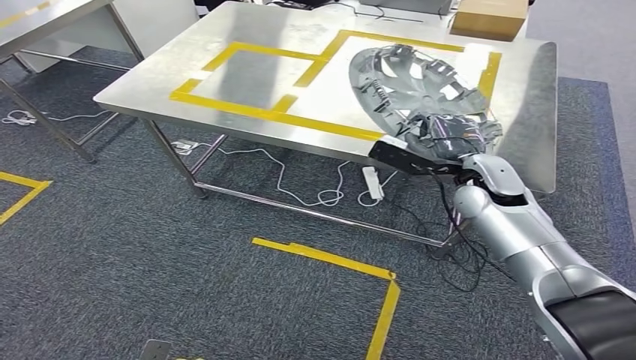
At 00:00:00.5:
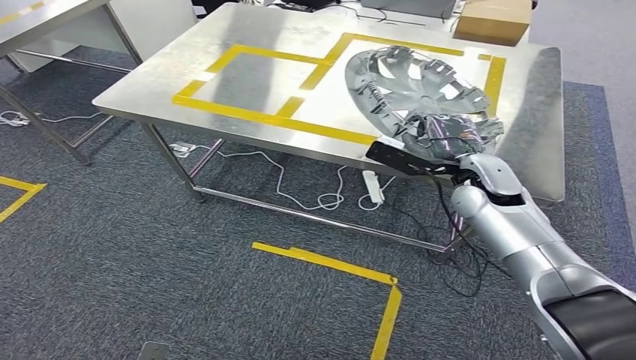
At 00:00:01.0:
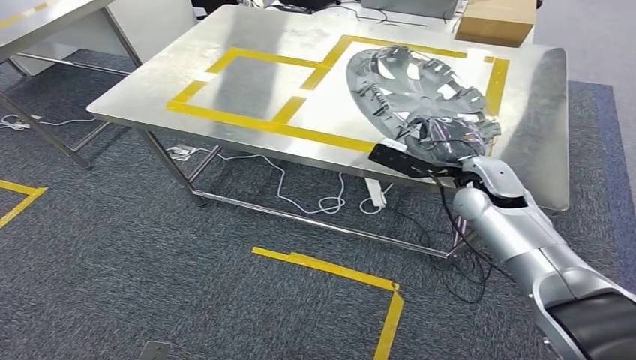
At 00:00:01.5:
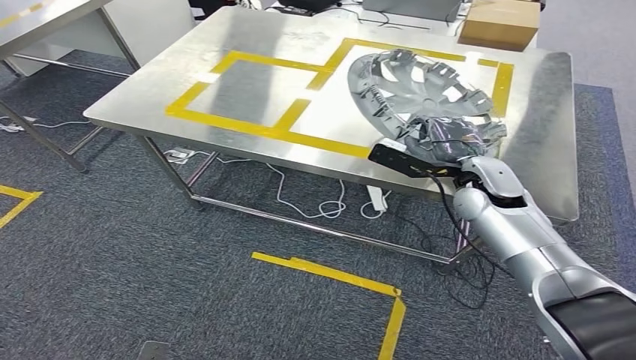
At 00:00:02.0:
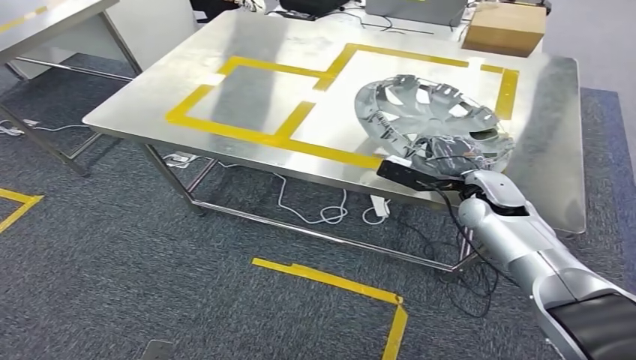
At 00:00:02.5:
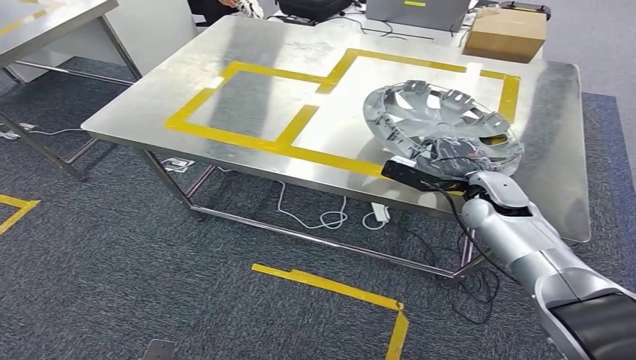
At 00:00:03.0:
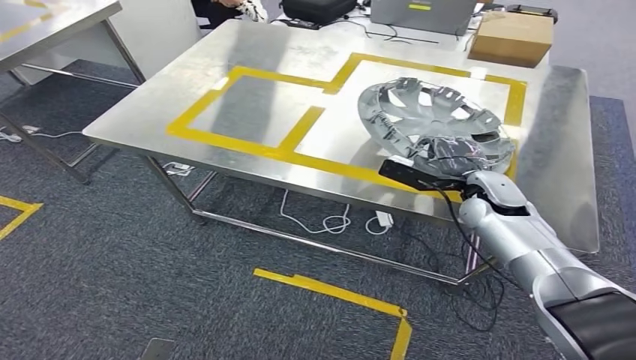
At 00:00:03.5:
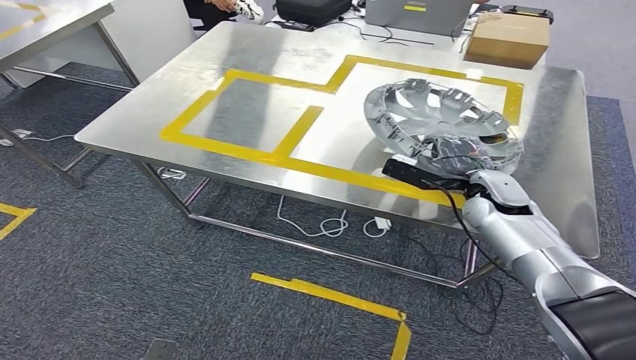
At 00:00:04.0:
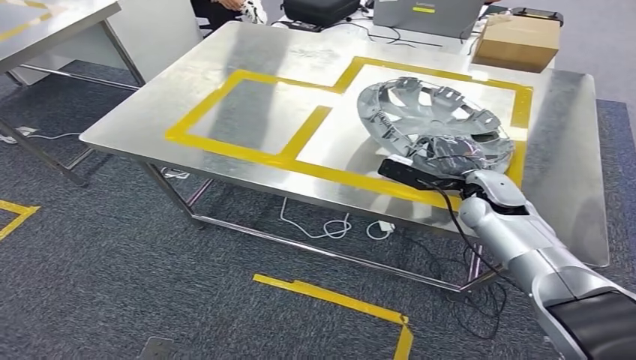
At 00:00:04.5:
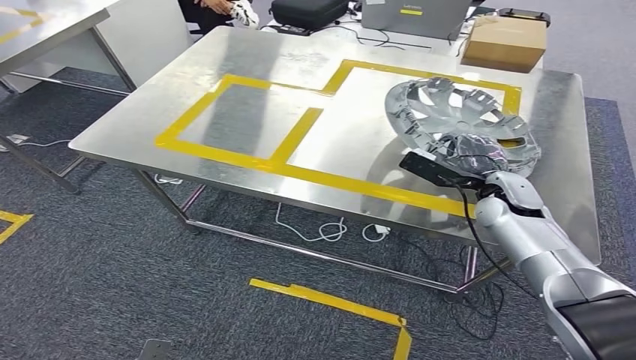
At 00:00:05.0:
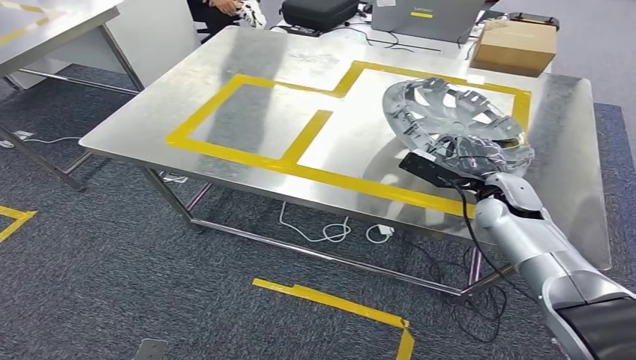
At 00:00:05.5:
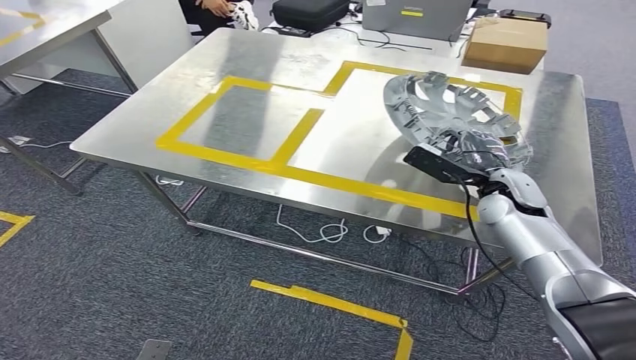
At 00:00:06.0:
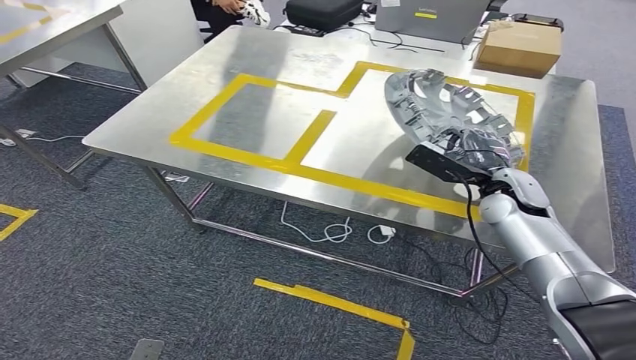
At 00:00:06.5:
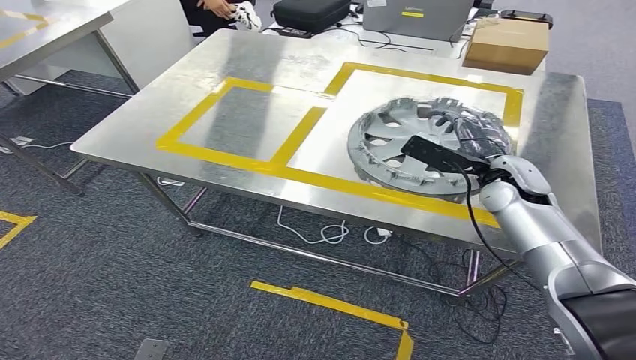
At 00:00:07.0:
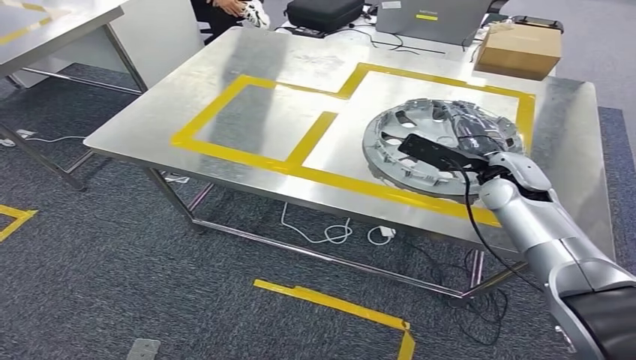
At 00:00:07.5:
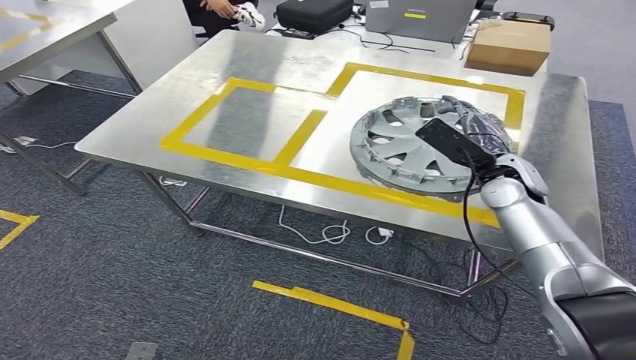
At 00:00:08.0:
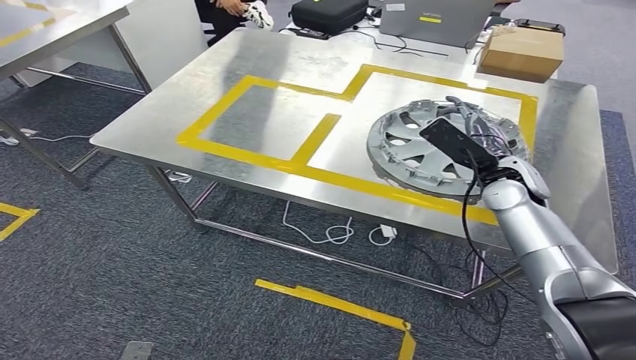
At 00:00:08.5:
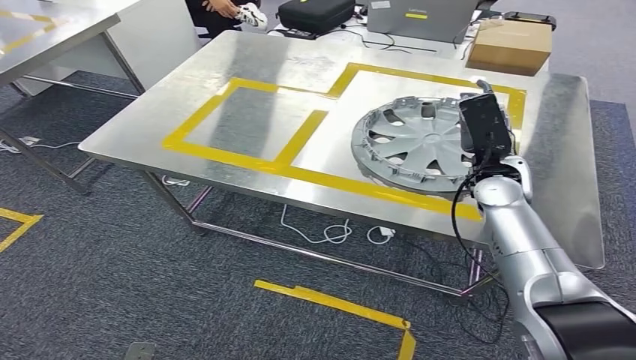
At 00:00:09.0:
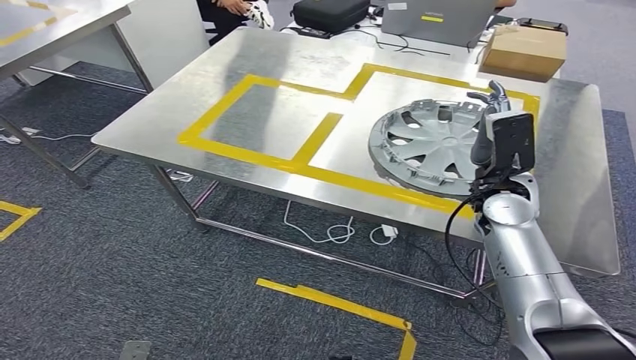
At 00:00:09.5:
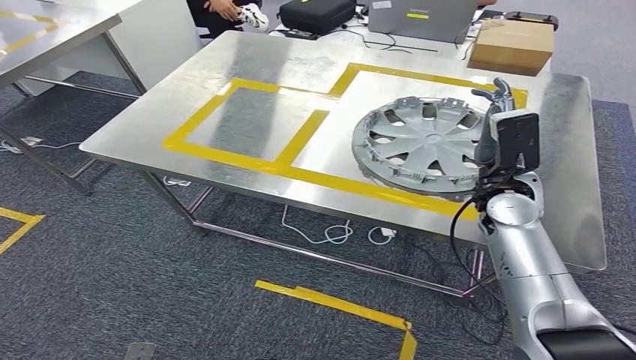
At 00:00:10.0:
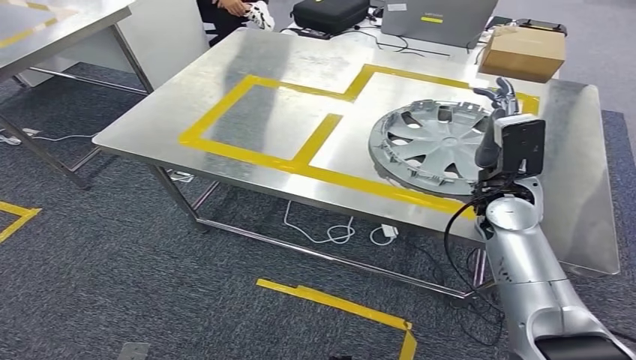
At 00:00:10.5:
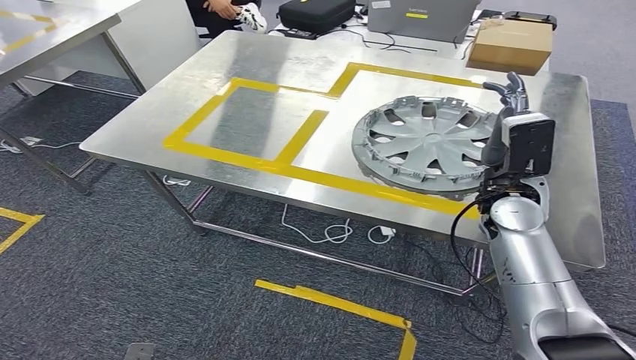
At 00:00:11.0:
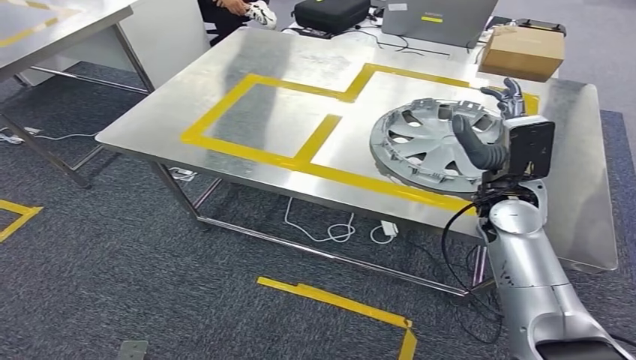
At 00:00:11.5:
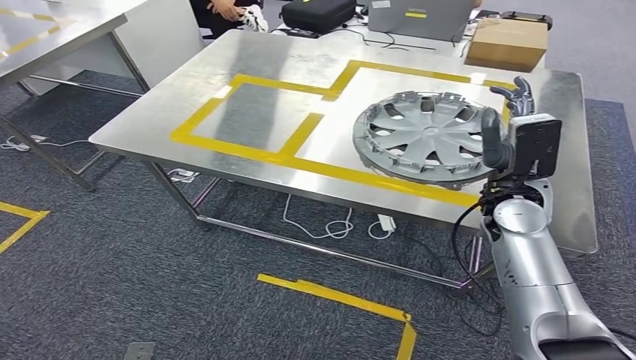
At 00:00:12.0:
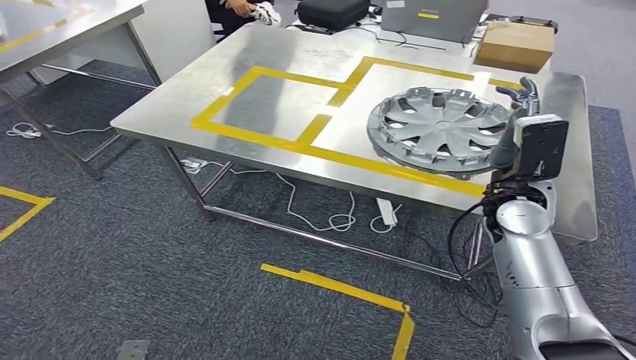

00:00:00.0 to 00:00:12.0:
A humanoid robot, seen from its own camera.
Step, 00:00:00.0 to 00:00:08.0: Insert the small component into the corresponding slot on the workbench.
00:00:06.0 to 00:00:08.0: The hands make only small movements.
00:00:08.0 to 00:00:10.0: The right hand ends up roughly 5 cm from where it was.

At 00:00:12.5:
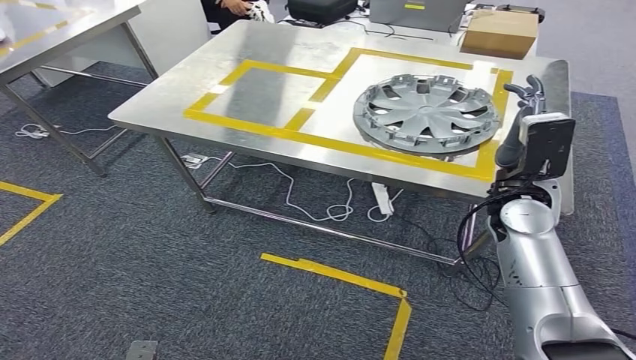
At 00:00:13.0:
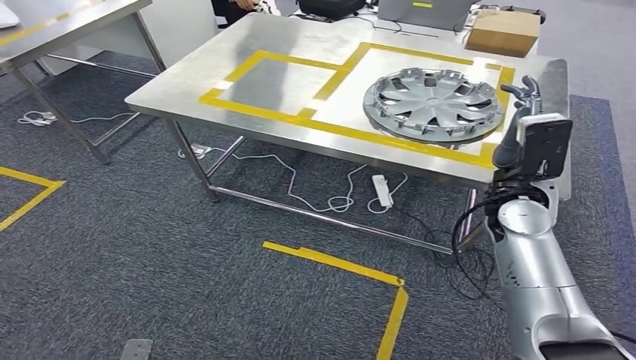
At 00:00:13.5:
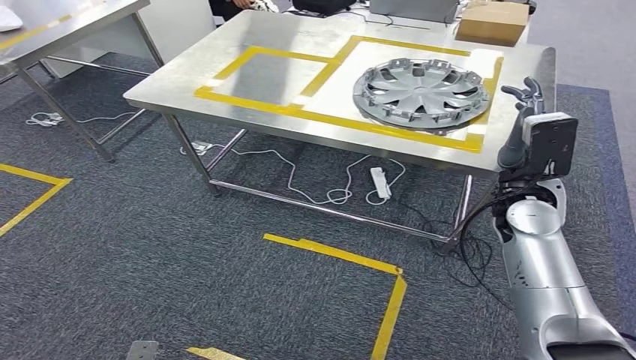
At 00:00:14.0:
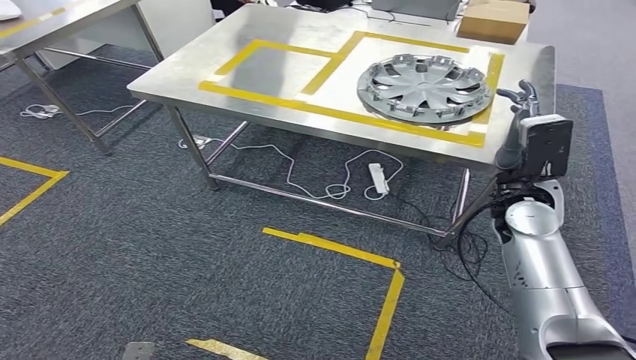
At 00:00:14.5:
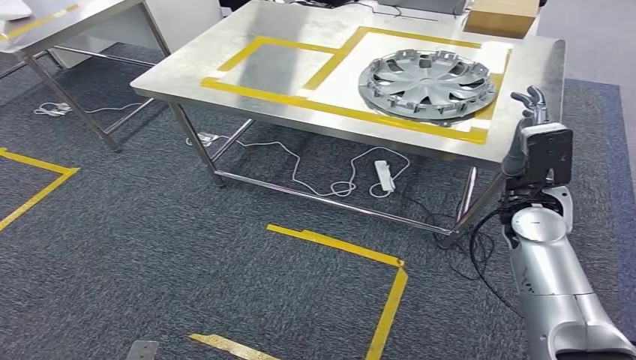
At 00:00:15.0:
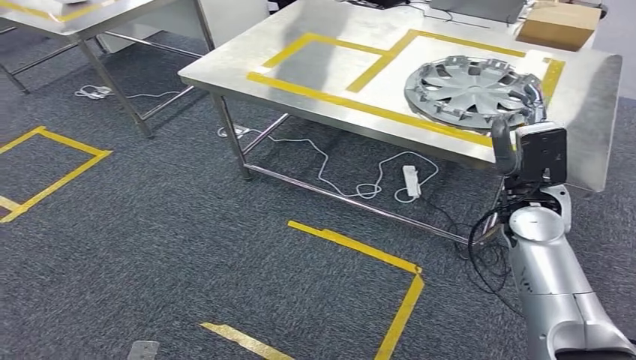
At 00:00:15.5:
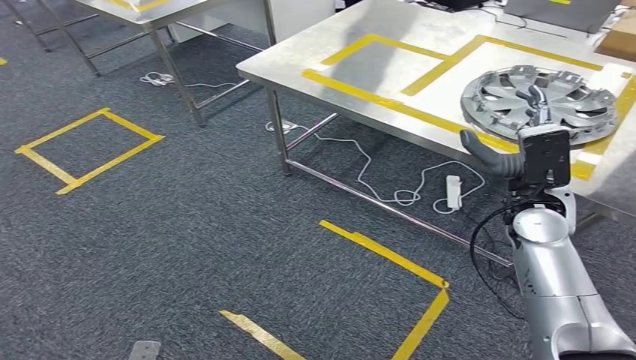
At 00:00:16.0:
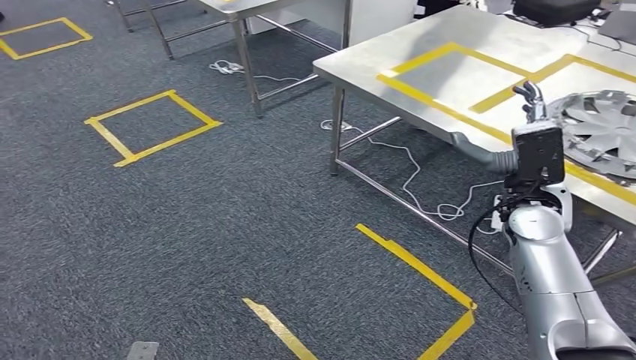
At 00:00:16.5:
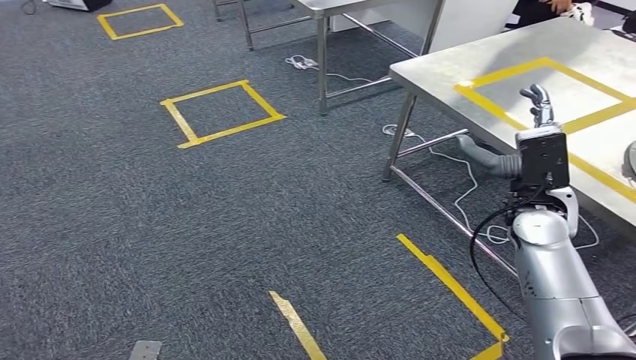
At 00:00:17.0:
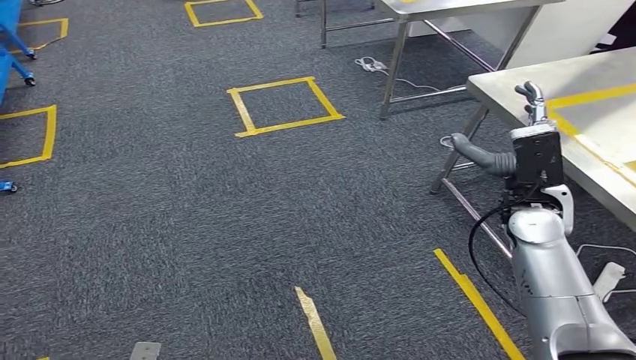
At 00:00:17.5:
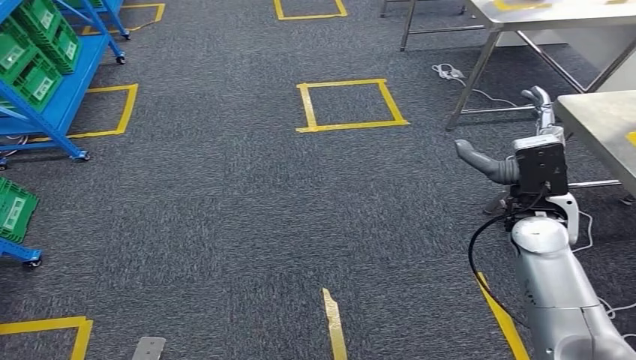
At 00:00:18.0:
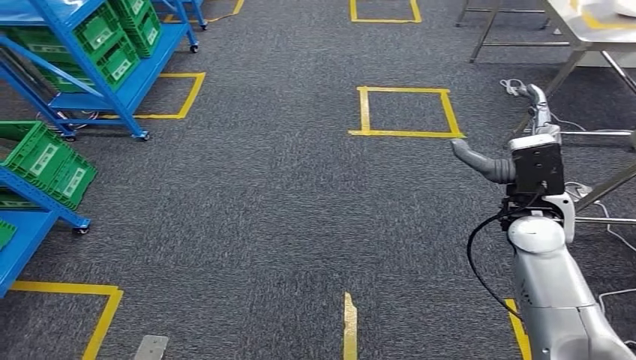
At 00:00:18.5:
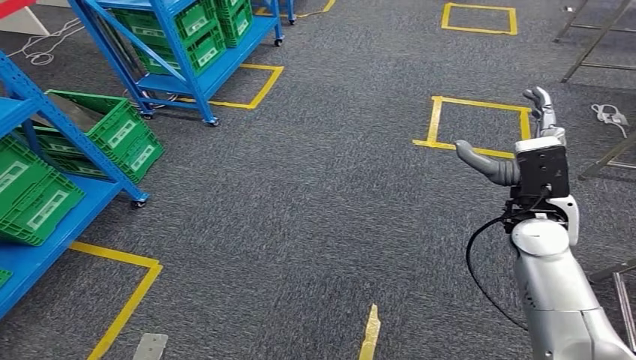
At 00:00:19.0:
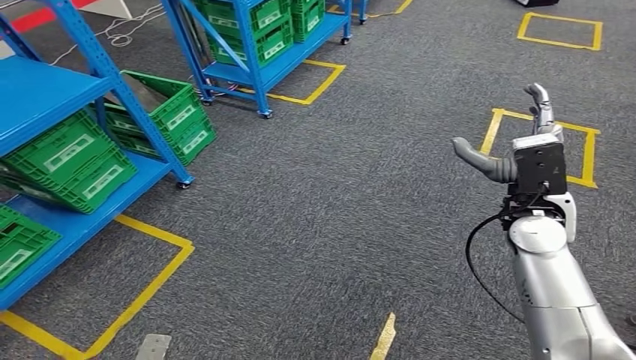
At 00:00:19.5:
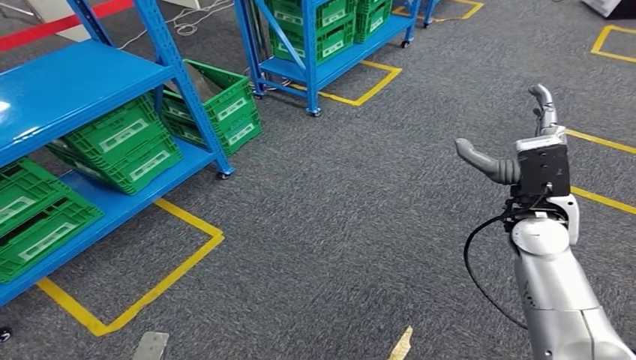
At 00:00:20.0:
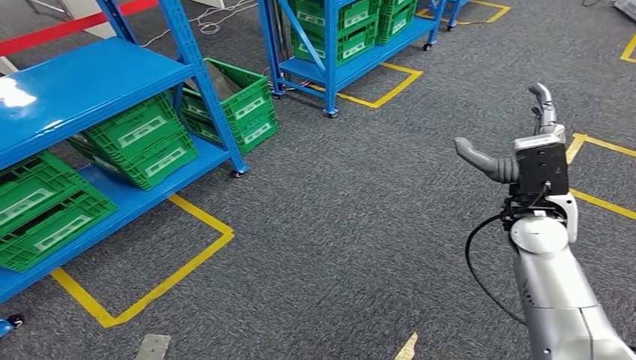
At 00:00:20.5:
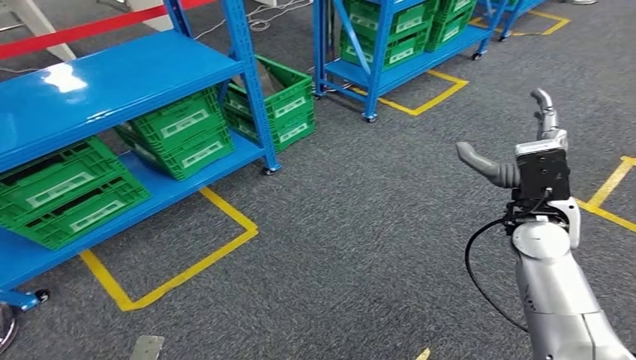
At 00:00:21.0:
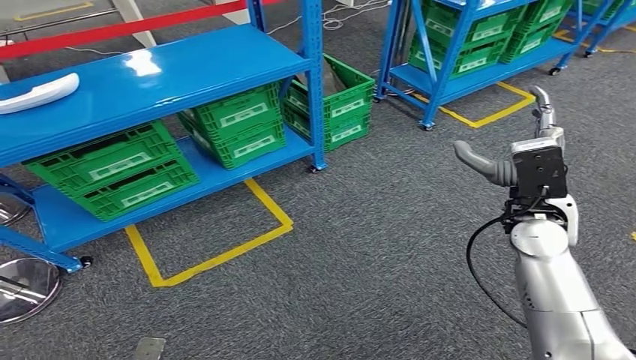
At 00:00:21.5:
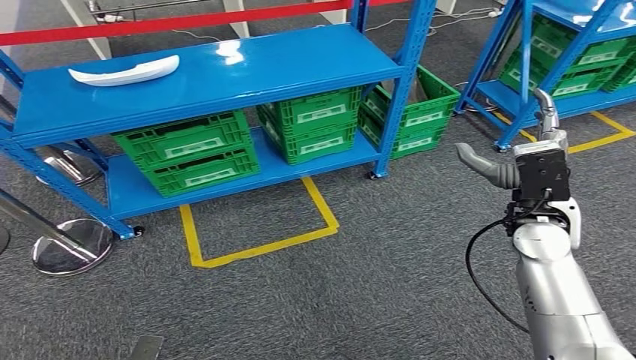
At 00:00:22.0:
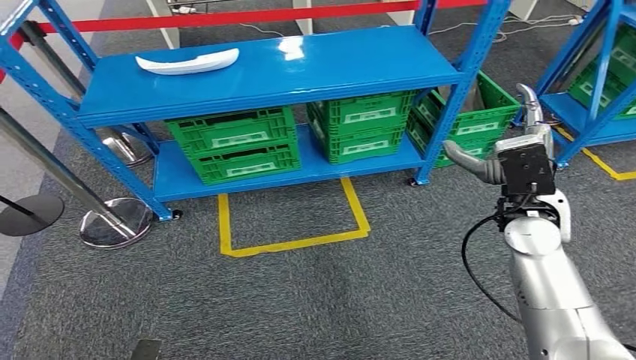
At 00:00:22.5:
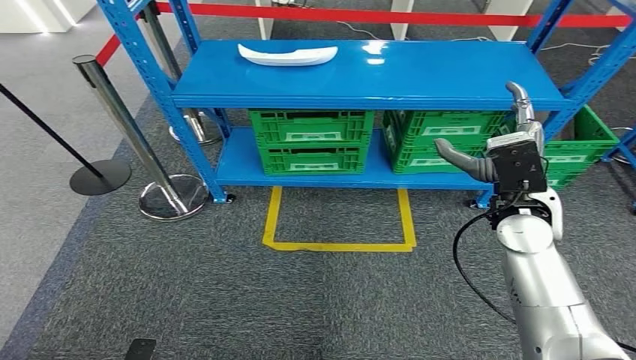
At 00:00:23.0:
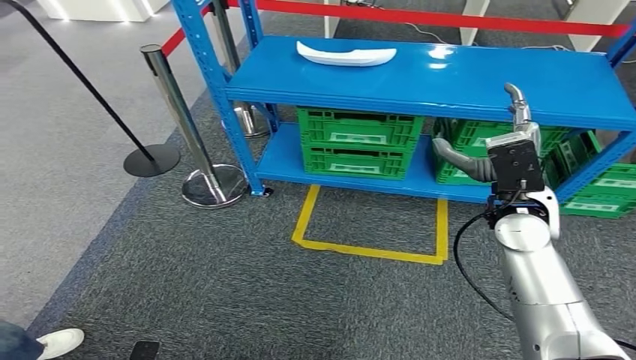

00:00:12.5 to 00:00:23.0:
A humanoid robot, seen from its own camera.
Step, 00:00:12.5 to 00:00:23.0: Return to the initial position at the workbench.
